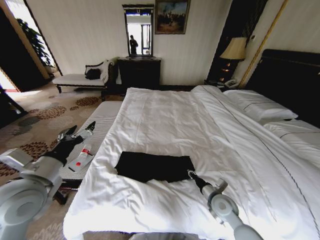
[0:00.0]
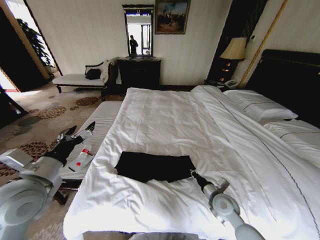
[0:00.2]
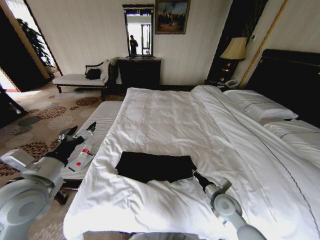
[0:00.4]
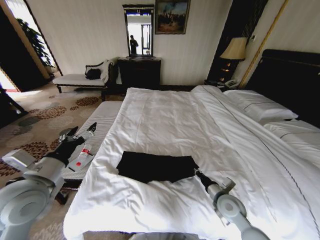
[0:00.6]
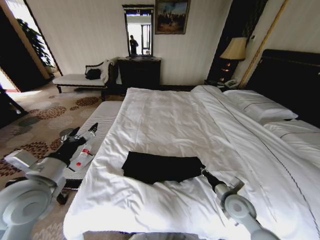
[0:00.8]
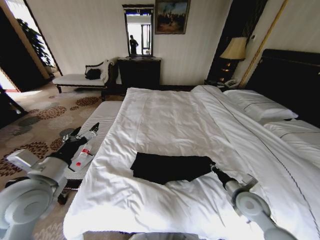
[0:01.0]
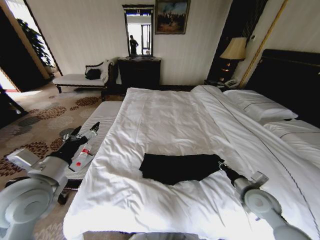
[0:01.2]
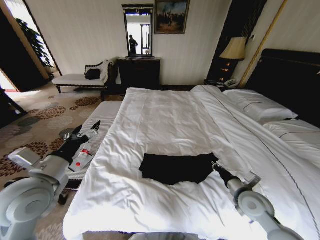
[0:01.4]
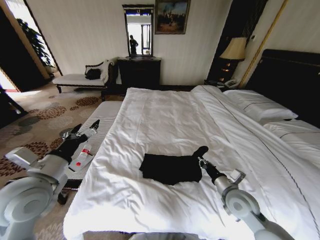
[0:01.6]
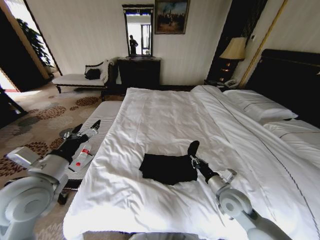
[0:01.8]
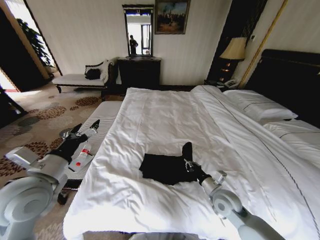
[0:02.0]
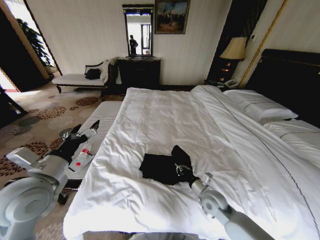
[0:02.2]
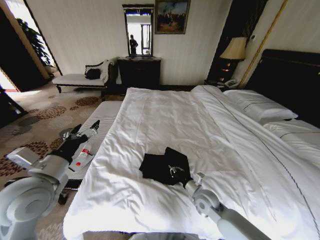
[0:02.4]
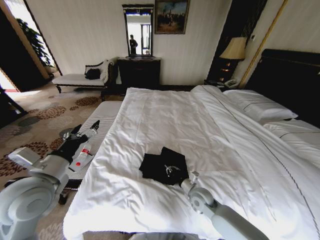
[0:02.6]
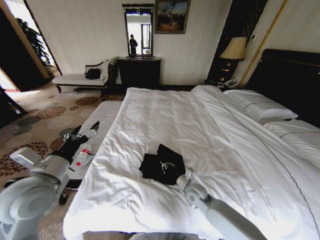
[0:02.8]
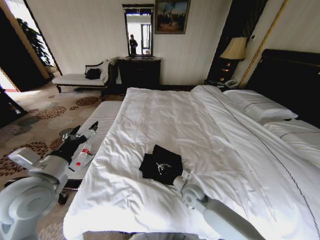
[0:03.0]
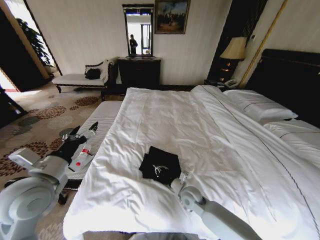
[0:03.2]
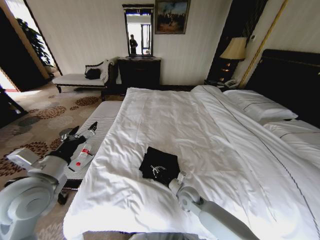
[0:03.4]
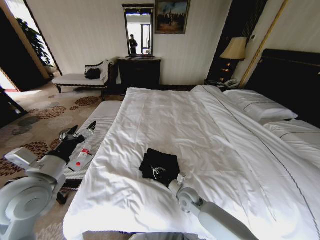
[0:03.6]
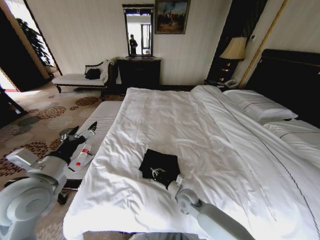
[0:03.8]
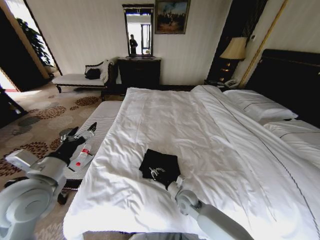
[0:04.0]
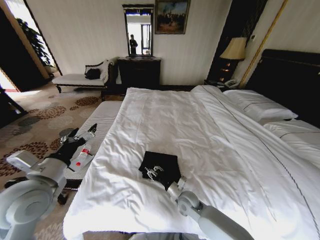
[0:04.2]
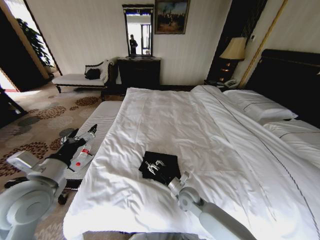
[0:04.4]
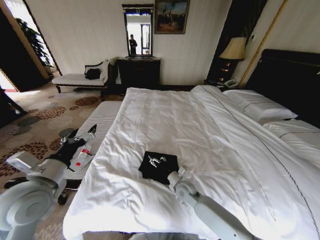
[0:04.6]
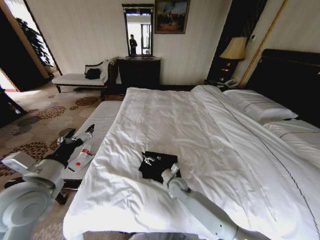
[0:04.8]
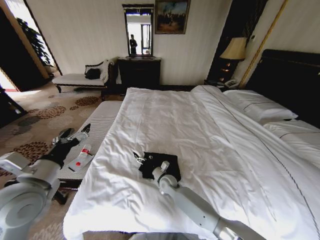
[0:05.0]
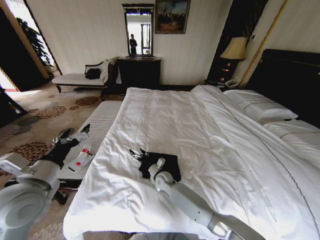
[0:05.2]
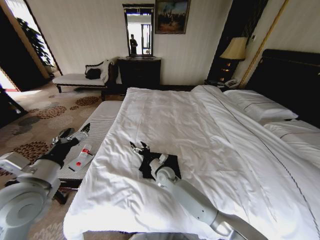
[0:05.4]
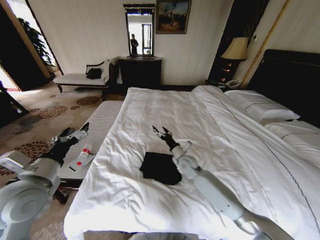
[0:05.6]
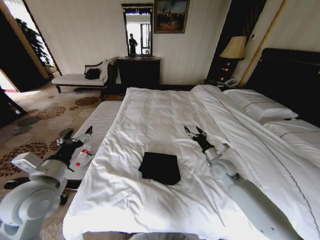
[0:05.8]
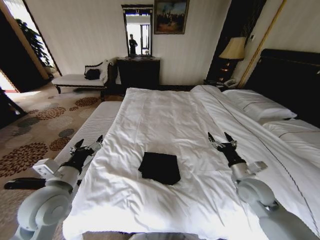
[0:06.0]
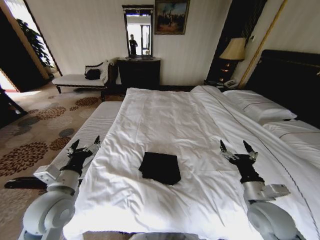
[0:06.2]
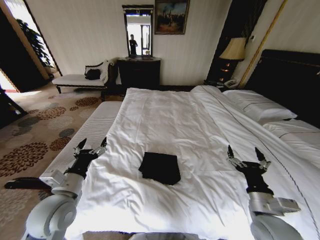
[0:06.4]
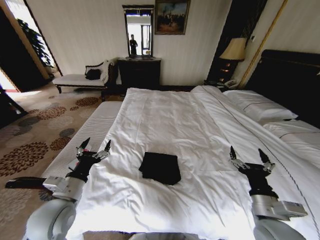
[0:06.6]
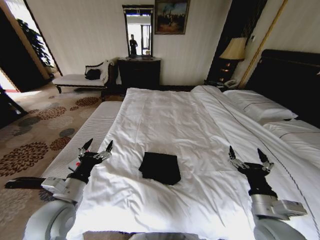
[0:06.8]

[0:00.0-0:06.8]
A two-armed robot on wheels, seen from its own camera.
Task of the whole recording: Fold the clothes on the bed.
0:00.0 to 0:01.4: The right gripper goes about 10 cm to the right and upward.
0:01.4 to 0:02.8: The right gripper heads to the left, downward and forward, covering about 20 cm.
0:02.8 to 0:04.0: The right gripper shifts by about 5 cm.
0:04.0 to 0:05.4: The right gripper shifts approximately 15 cm forward and to the left, and opens.
0:05.4 to 0:06.8: The left gripper shifts about 10 cm downward, while the right gripper travels to the right, backward and upward by about 40 cm.
